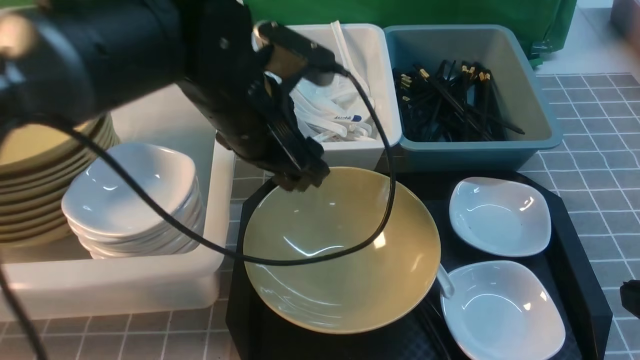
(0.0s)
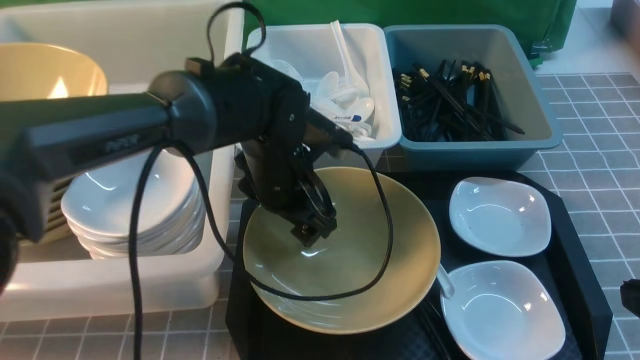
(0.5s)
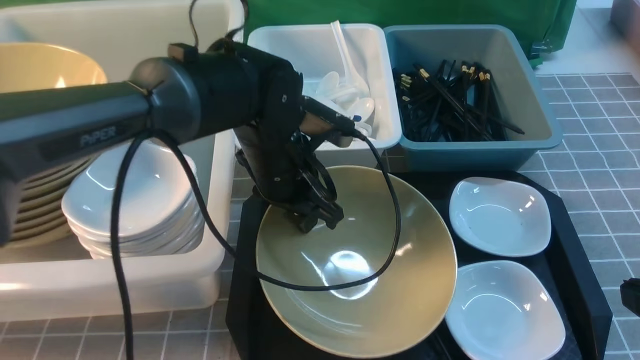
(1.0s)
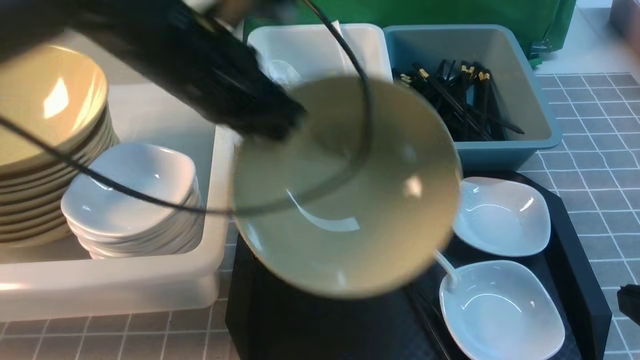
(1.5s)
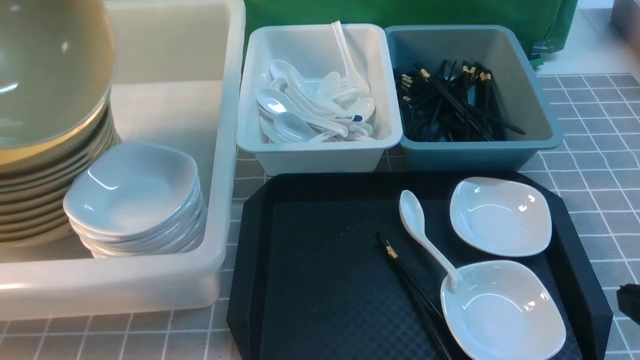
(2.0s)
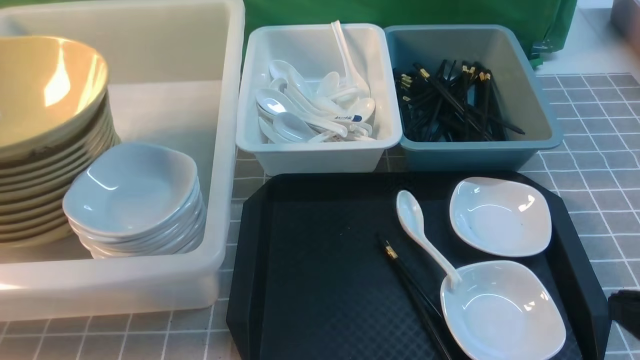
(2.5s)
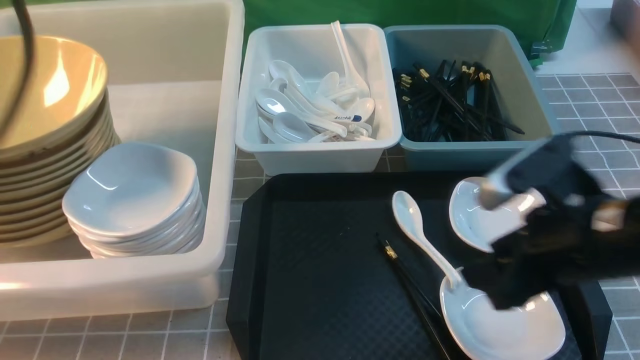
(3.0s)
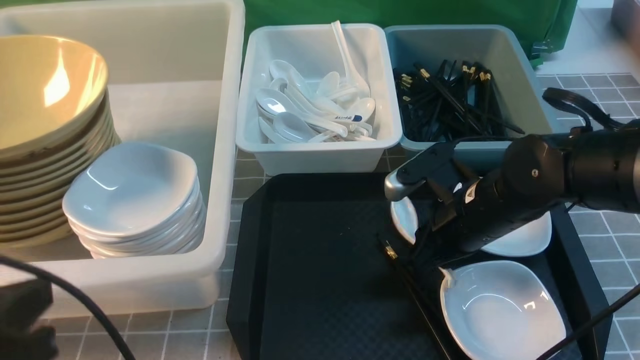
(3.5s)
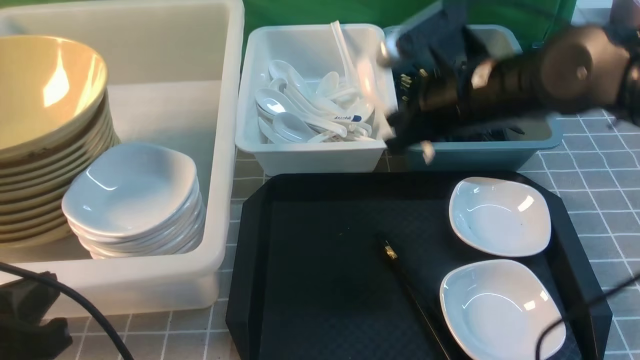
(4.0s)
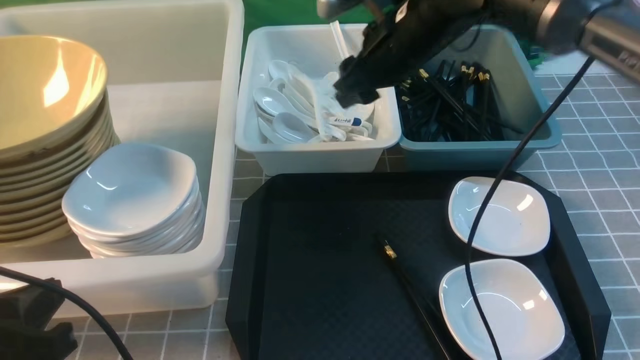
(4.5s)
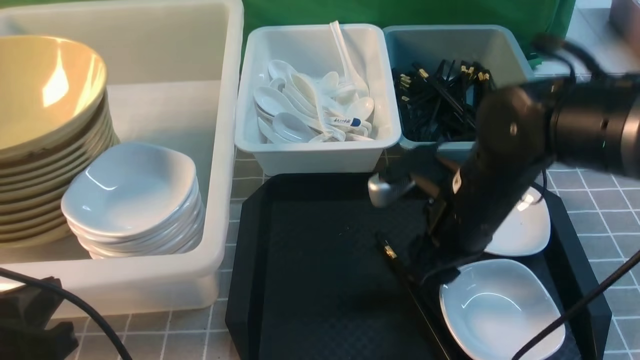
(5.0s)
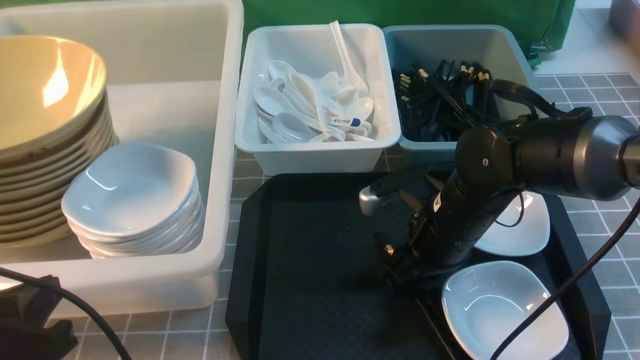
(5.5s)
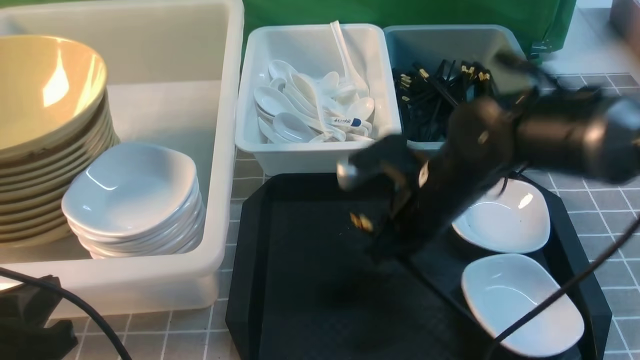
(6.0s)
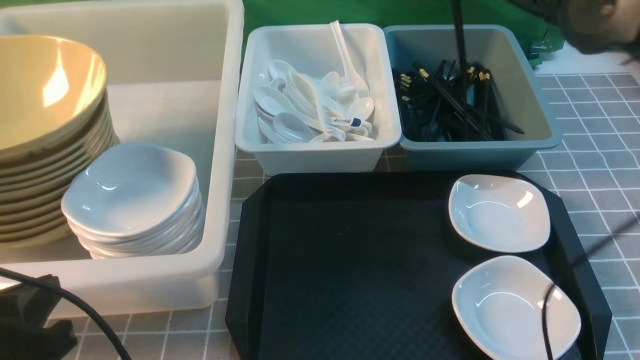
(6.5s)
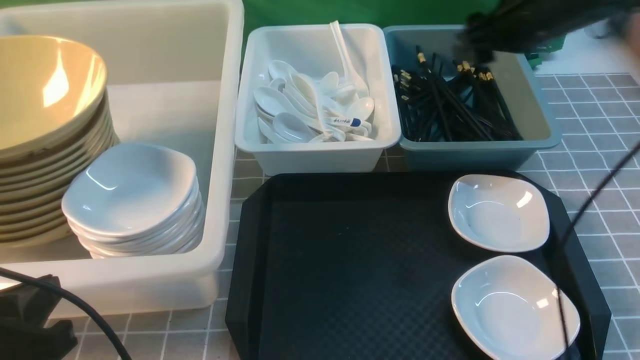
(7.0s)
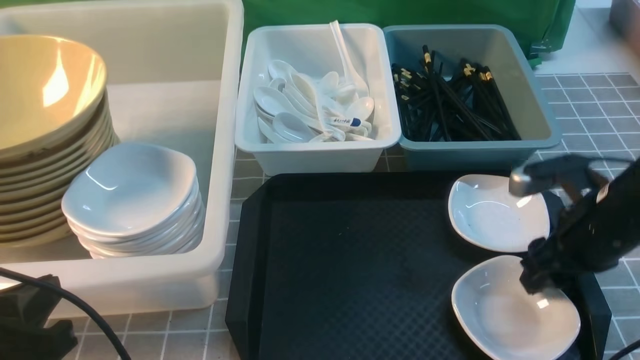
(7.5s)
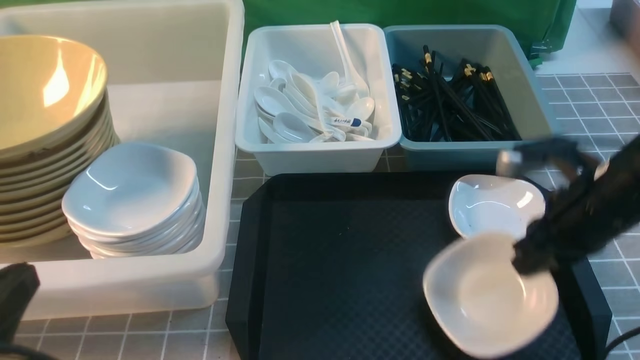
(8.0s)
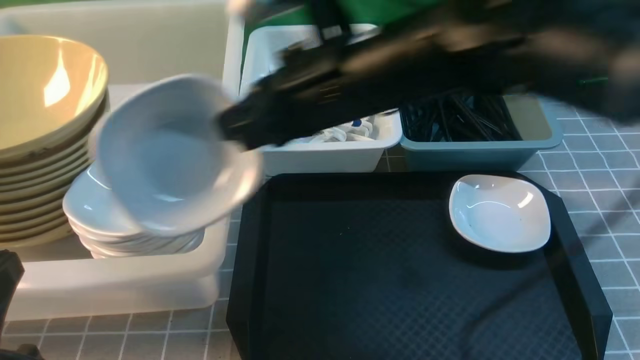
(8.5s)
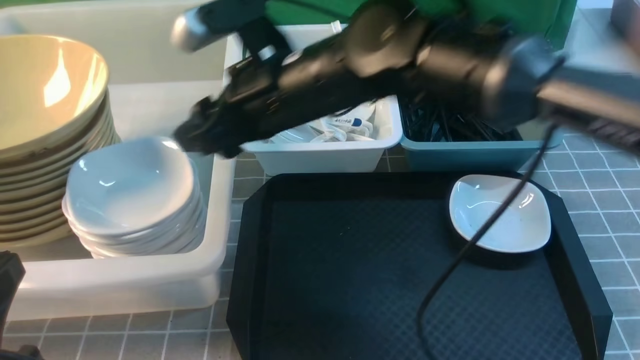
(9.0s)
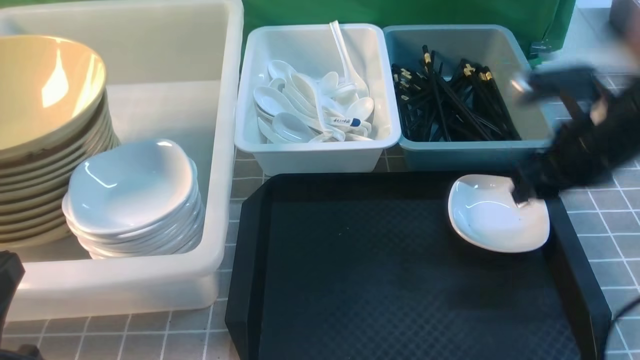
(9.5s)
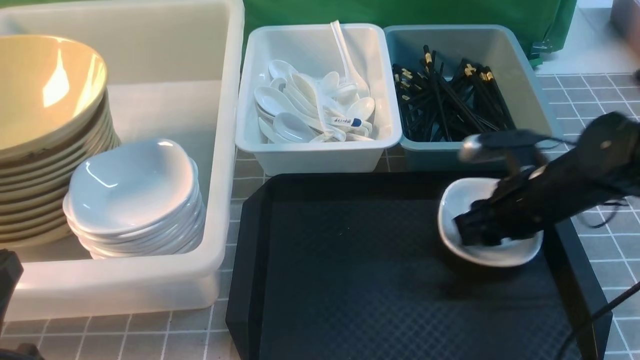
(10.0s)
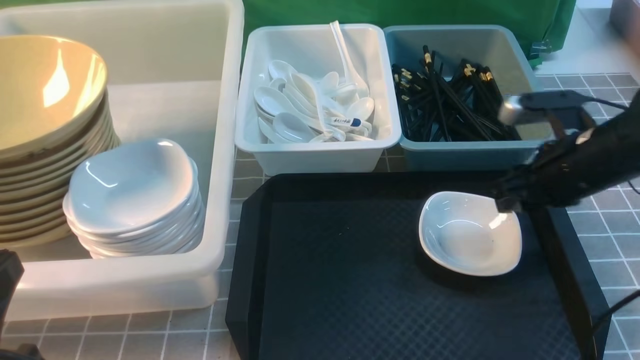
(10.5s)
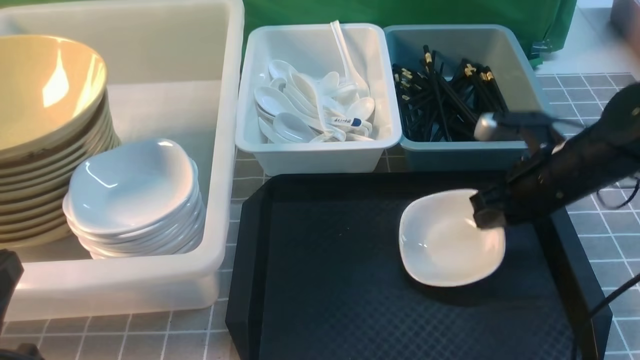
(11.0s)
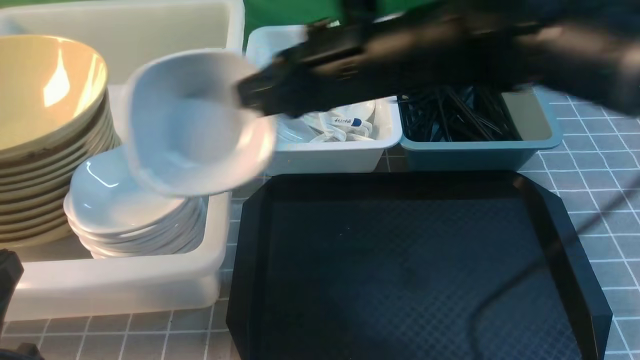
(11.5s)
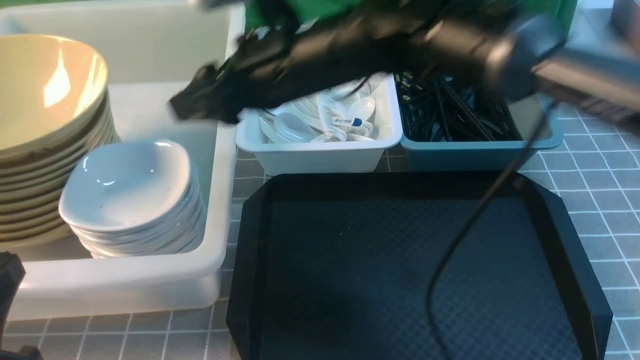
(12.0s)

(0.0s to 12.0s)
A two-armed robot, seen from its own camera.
Task of the whole recording: on grey table put chopsticks spoon bowls plates into blue grey white boxes.
Step, 1.5s - 3.0s: use the left arm to put the noodle bowl into the large storage box on the left.
Step, 3.5s - 4.0s: use the right arm to grab the soup spoon in the middle.
Step, 5.0s - 6.0s: use the right arm to grab the chopsticks.
Step, 7.0s - 8.0s: use the right arm to grab the plate.
Step, 8.5s - 9.0s: use the right arm to put the plate into the large storage box on the left.
Step, 9.5s - 11.0s: use the right arm to grab the plate.
Step, 11.5s - 12.0s: use the right arm to put the plate into the large storage box on the left.
0.0s - 2.0s: The left gripper goes about 30 cm to the left and upward, and closes its fingers.
2.0s - 4.0s: The right gripper goes roughly 30 cm forward and to the left, and opens and closes again, while the left gripper shifts about 25 cm backward, downward and to the right, and opens, then closes once more.
4.0s - 6.0s: The right gripper opens, then closes once more.
6.0s - 8.0s: The right gripper goes some 10 cm to the right, and opens, then closes again.
8.0s - 10.0s: The right gripper moves downward, some 5 cm, goes to the left and returns, some 20 cm each way, and opens.
10.0s - 12.0s: The right gripper shifts some 25 cm to the left and upward, and closes, then opens again.

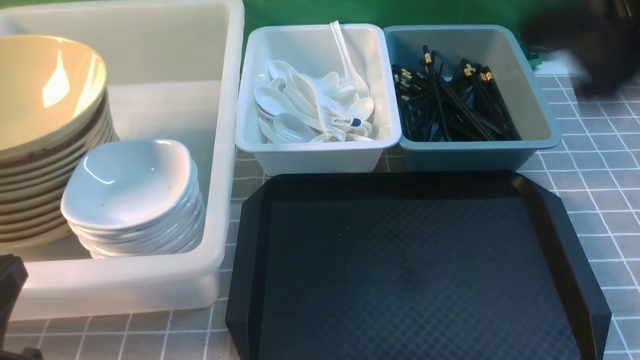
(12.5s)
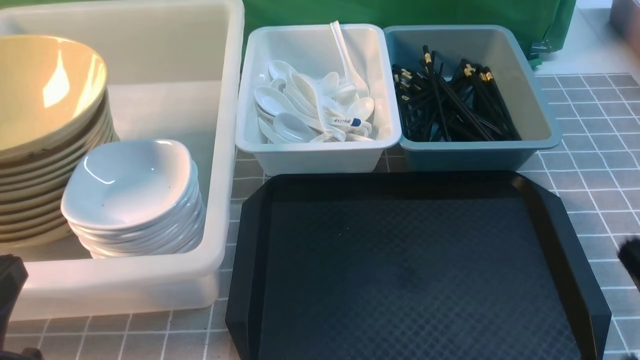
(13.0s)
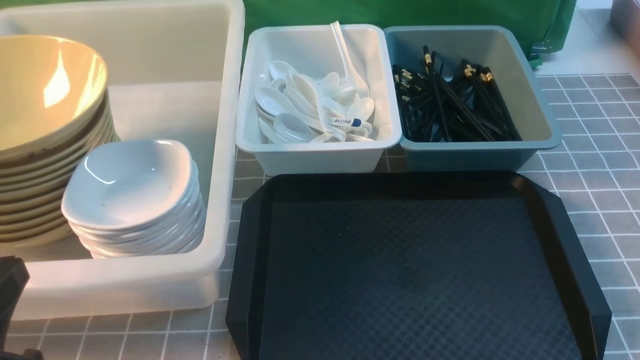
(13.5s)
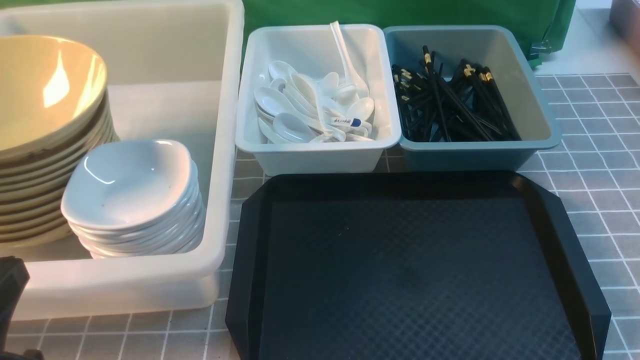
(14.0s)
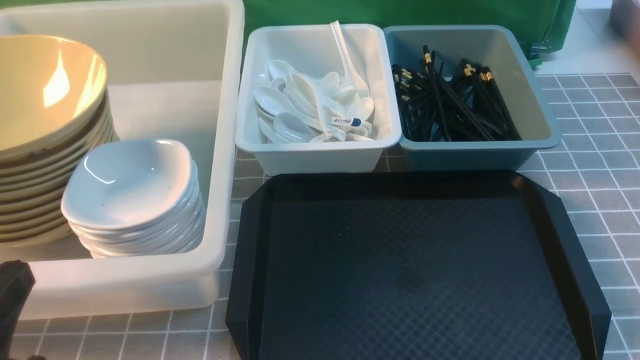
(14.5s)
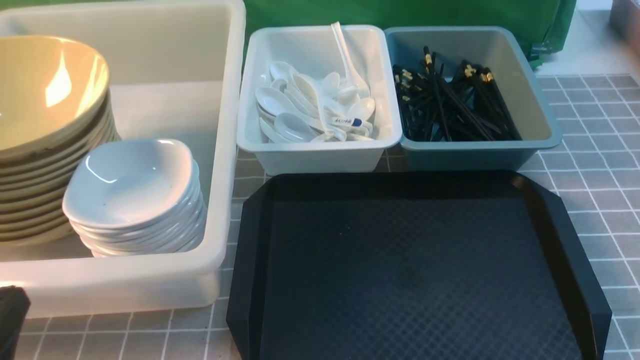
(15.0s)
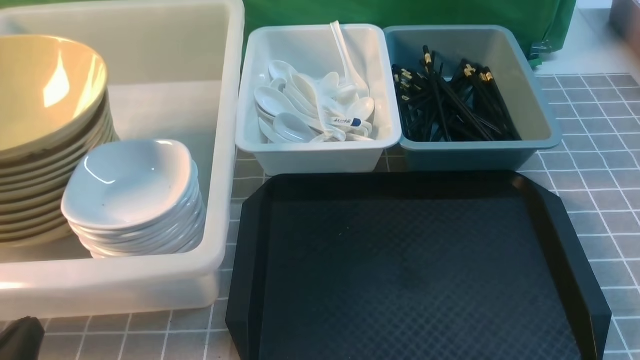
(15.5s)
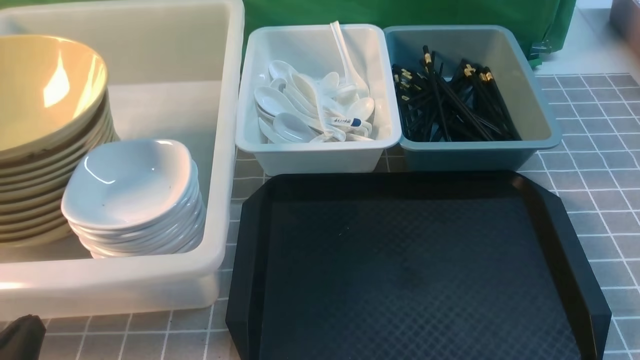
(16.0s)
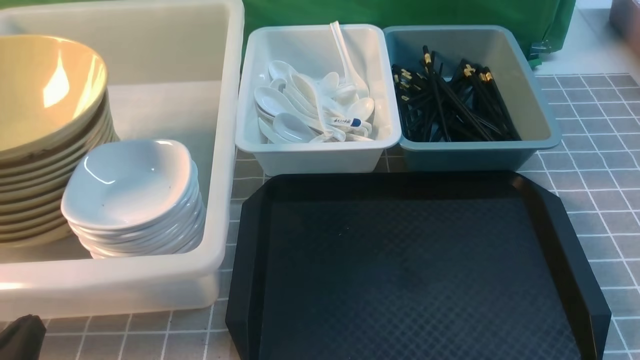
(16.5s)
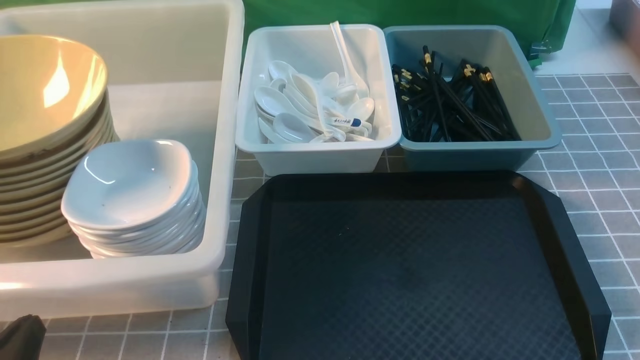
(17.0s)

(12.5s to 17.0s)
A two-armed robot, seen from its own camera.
Task of the whole recording: on grey table put chopsticks spoon bowls plates into blue grey white boxes.
12.5s - 14.5s: The right gripper is displaced downward, backward and to the right by some 30 cm.
14.5s - 17.0s: The left gripper is displaced downward by approximately 10 cm.

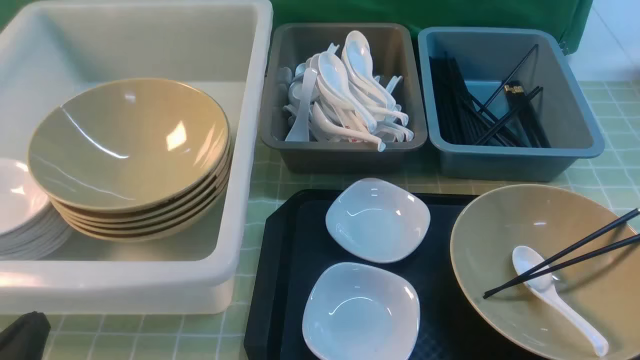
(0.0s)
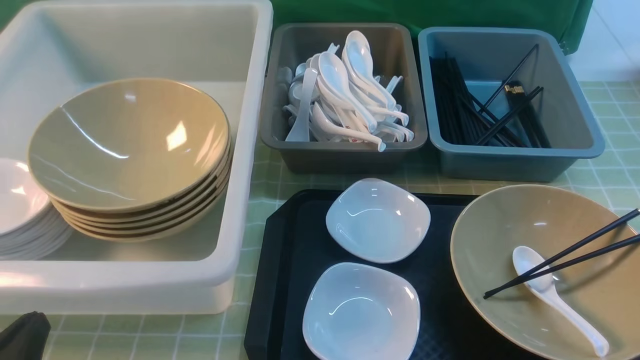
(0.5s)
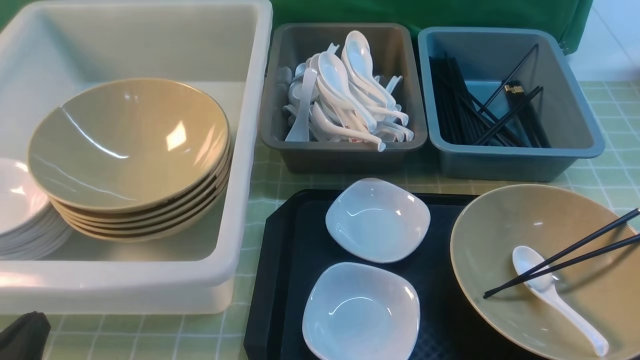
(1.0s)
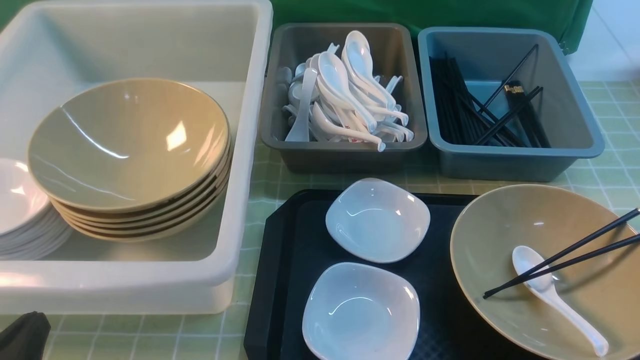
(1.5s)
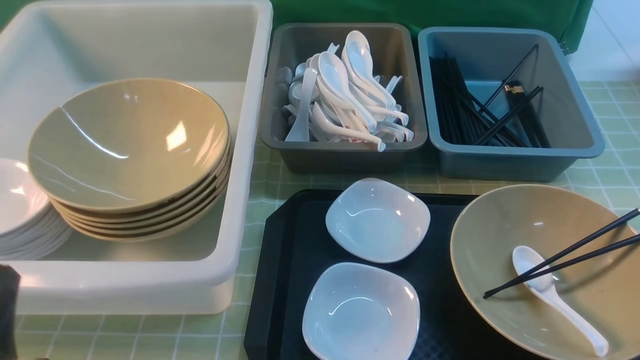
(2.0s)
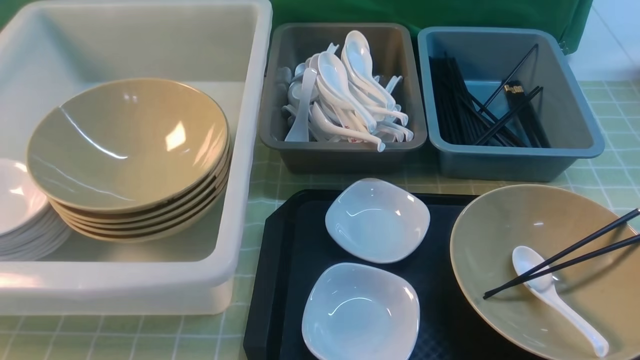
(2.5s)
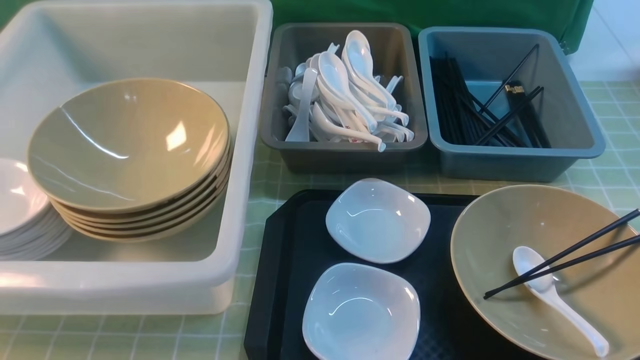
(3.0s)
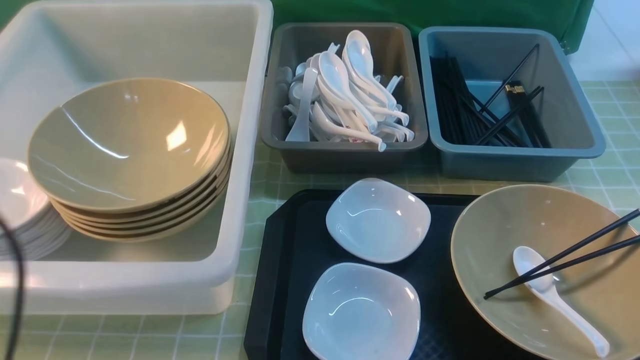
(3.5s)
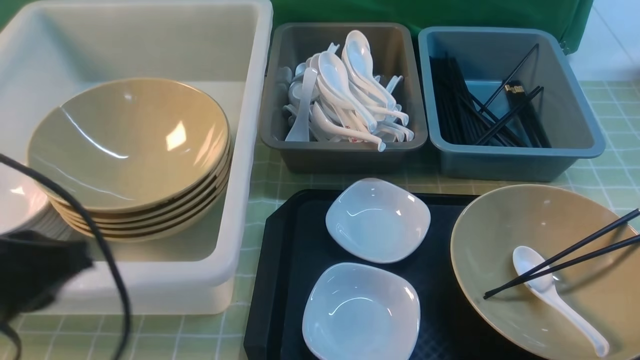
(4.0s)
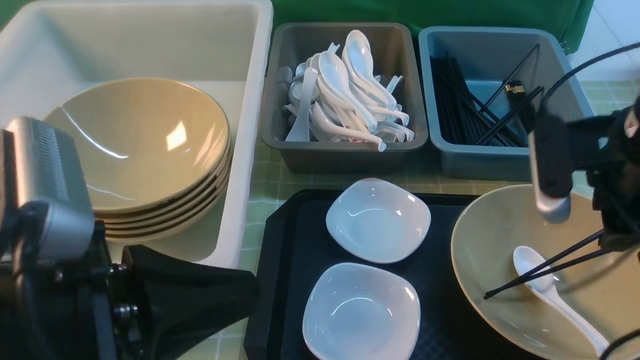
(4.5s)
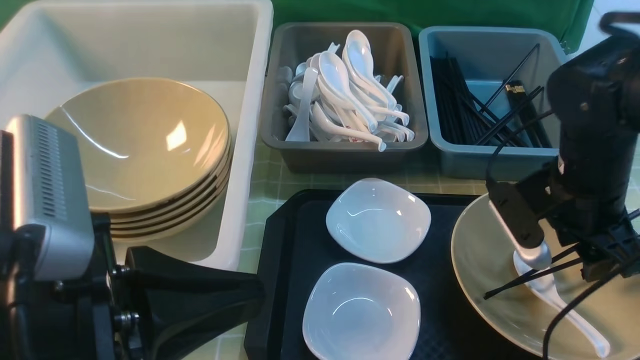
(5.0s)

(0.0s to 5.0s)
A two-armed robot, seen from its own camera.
Task of the whole recording: on green table put chopsticks spoon bowls plates into blue grey white boxes.
0.0s - 2.5s: The left gripper heads upward, covering some 5 cm.
2.5s - 5.0s: The left gripper travels to the right and upward by some 15 cm. Meanwhile the right gripper is displaced forward by roughly 25 cm, and opens.
